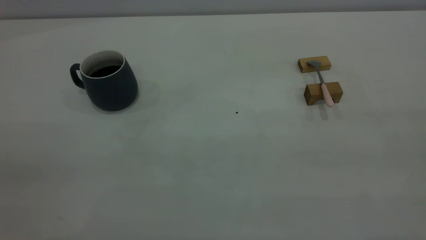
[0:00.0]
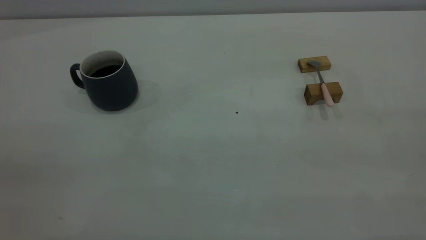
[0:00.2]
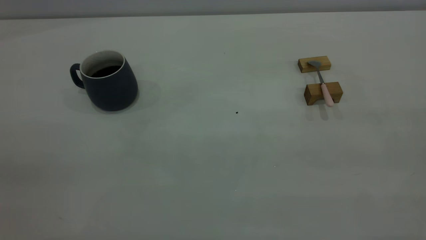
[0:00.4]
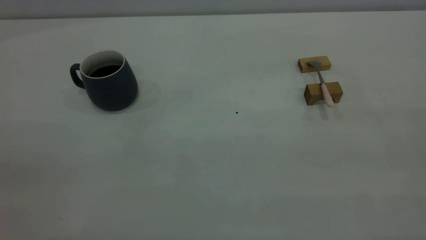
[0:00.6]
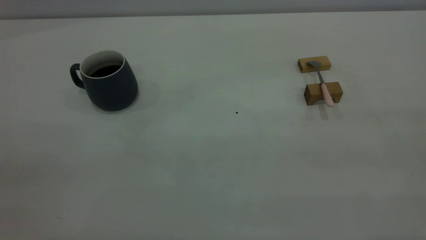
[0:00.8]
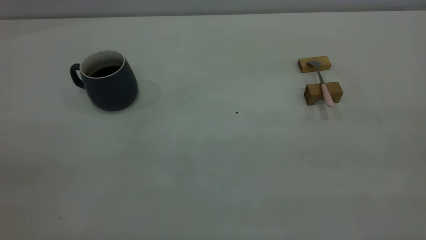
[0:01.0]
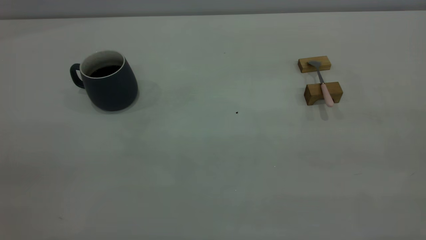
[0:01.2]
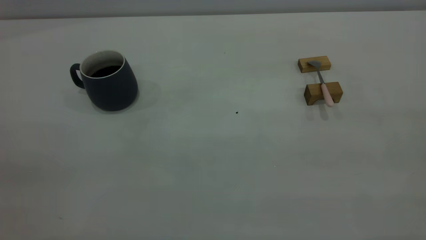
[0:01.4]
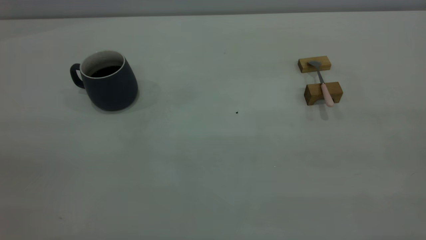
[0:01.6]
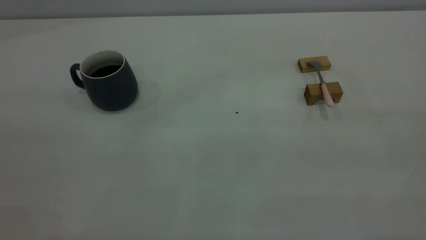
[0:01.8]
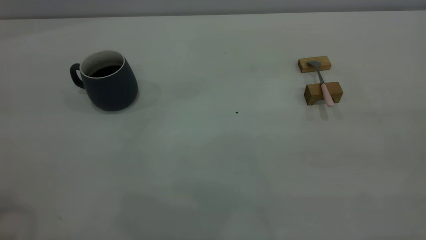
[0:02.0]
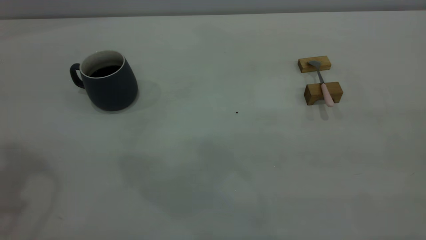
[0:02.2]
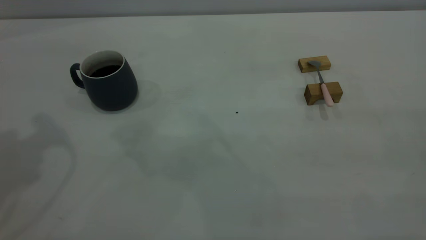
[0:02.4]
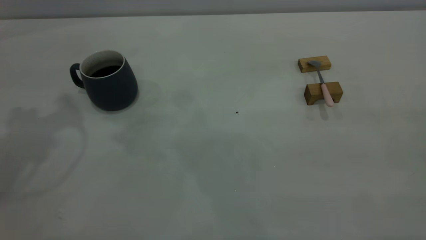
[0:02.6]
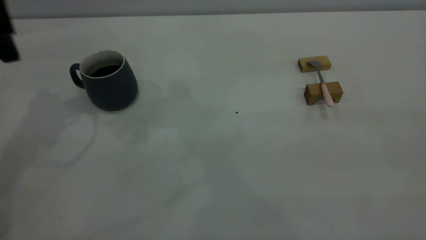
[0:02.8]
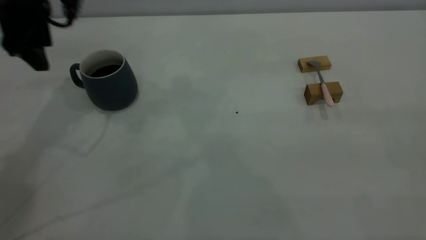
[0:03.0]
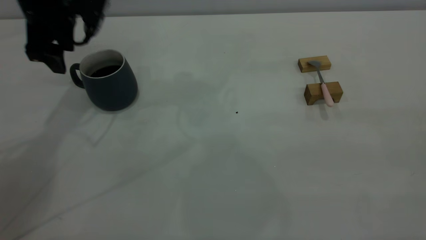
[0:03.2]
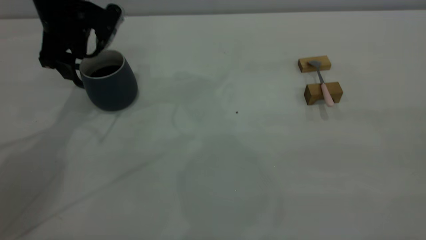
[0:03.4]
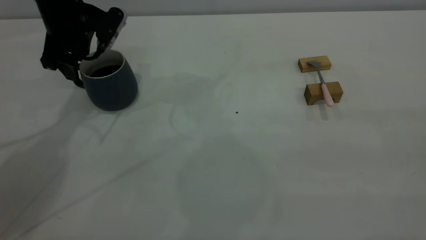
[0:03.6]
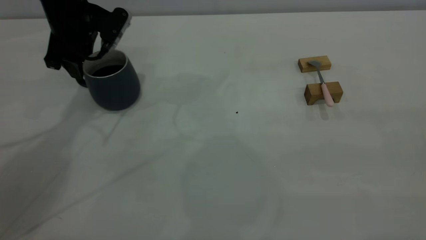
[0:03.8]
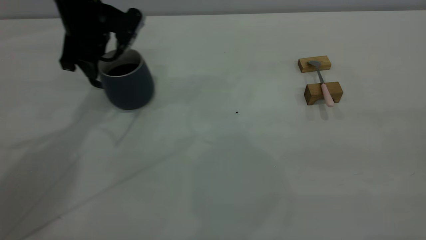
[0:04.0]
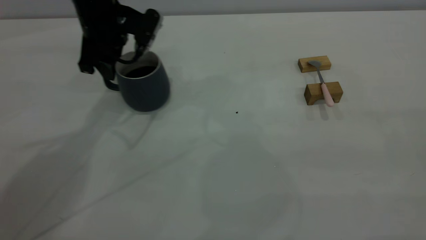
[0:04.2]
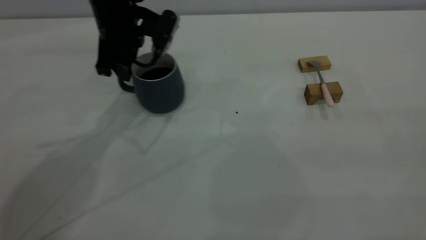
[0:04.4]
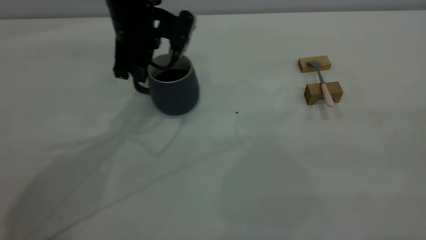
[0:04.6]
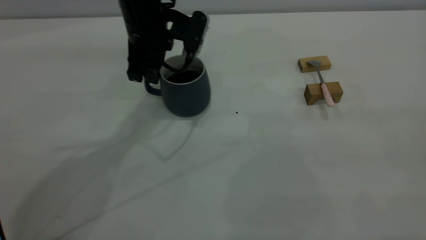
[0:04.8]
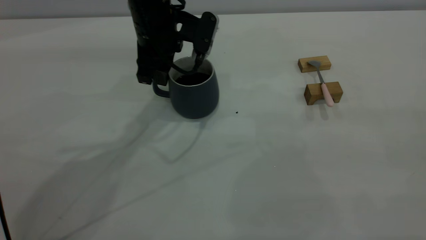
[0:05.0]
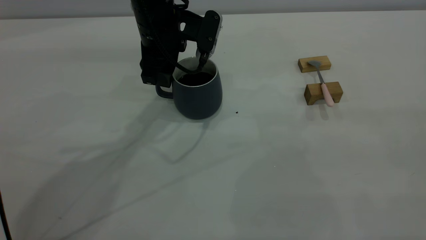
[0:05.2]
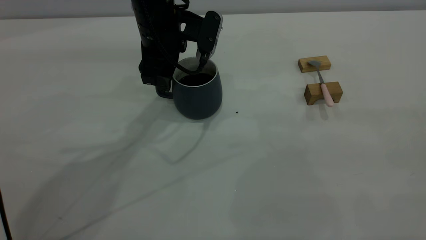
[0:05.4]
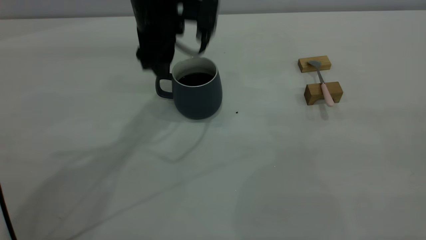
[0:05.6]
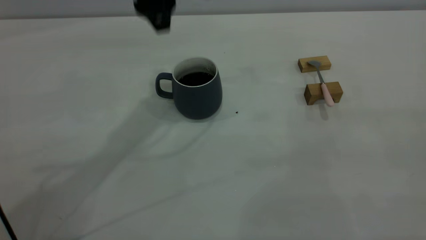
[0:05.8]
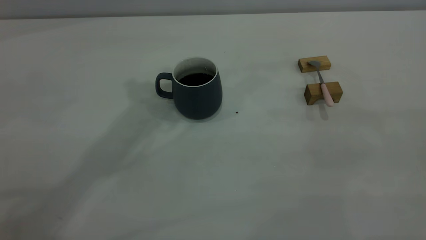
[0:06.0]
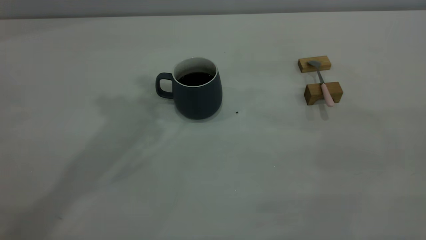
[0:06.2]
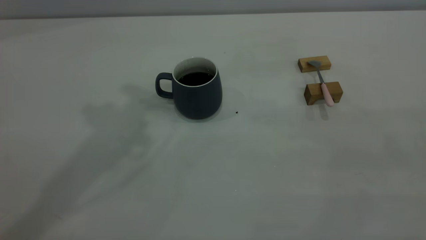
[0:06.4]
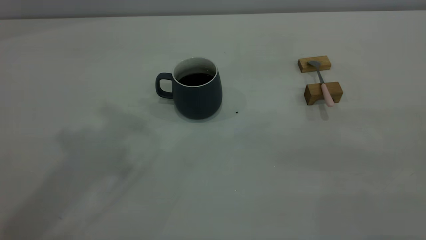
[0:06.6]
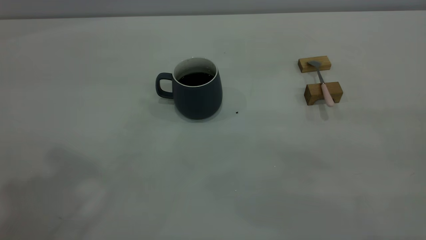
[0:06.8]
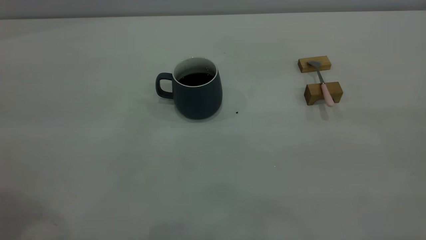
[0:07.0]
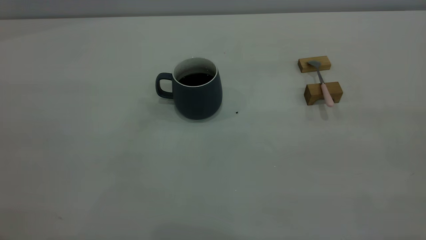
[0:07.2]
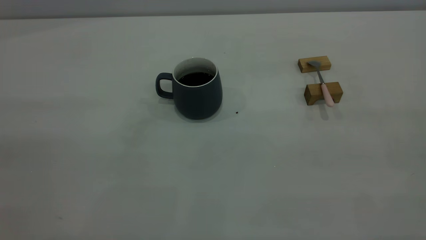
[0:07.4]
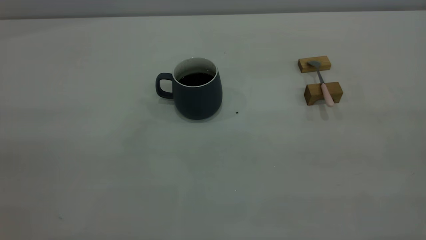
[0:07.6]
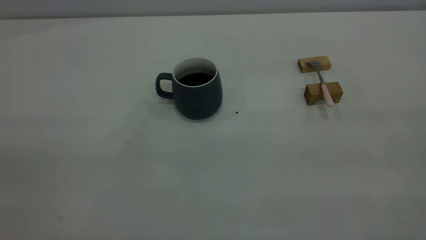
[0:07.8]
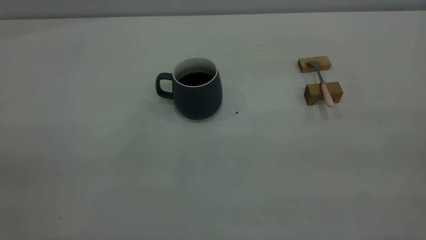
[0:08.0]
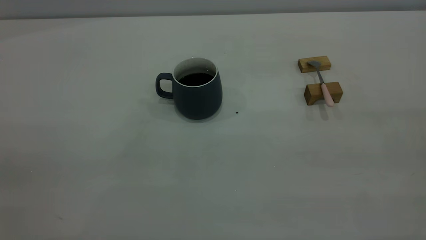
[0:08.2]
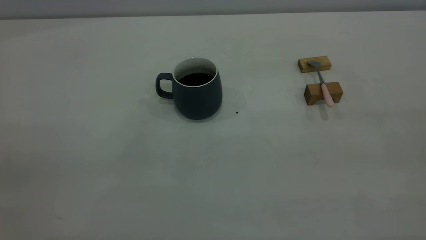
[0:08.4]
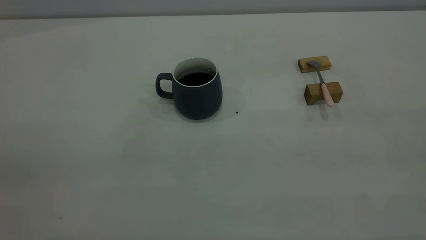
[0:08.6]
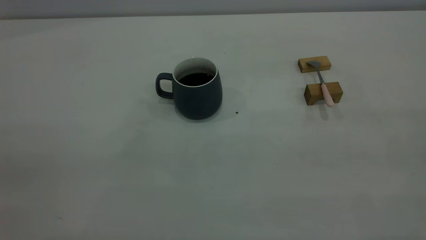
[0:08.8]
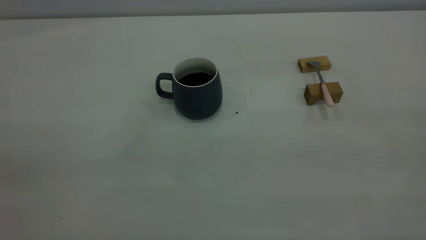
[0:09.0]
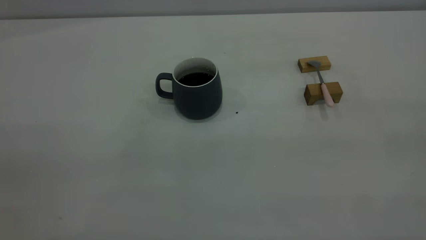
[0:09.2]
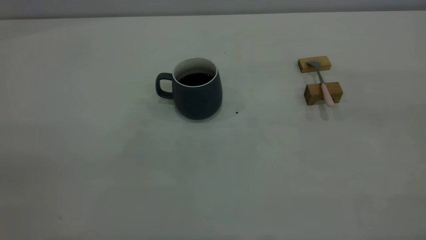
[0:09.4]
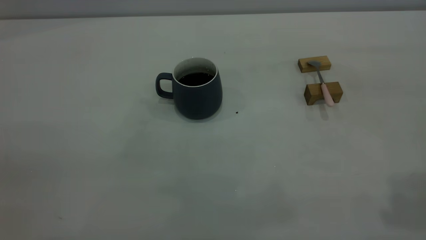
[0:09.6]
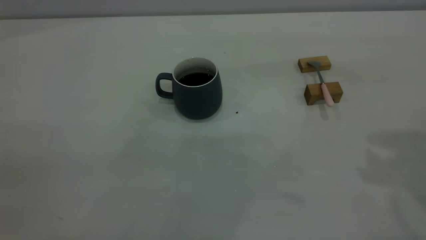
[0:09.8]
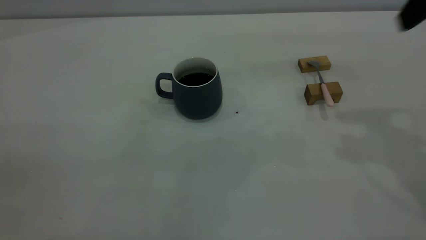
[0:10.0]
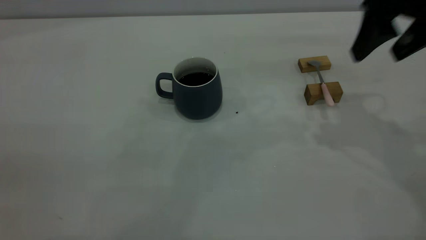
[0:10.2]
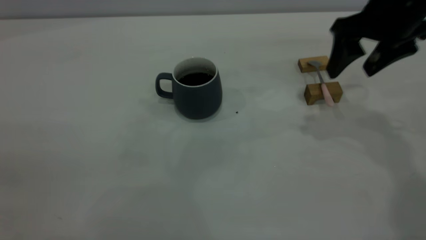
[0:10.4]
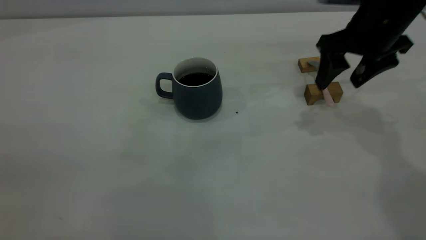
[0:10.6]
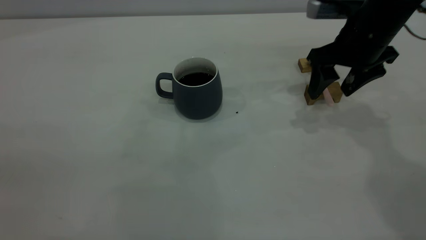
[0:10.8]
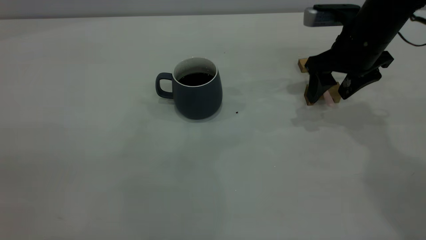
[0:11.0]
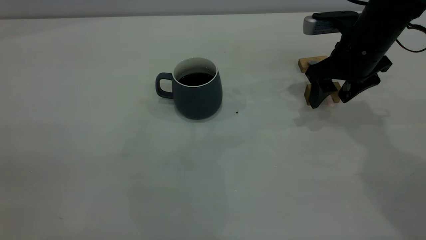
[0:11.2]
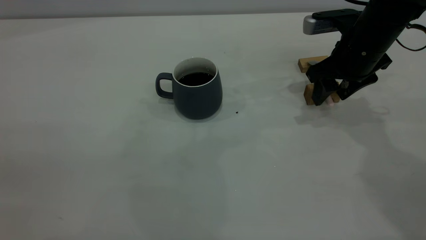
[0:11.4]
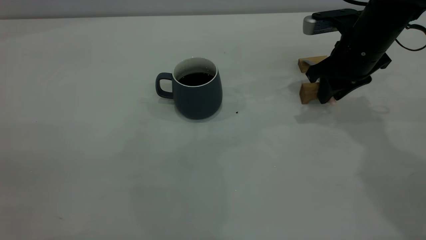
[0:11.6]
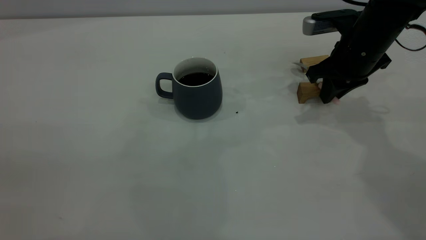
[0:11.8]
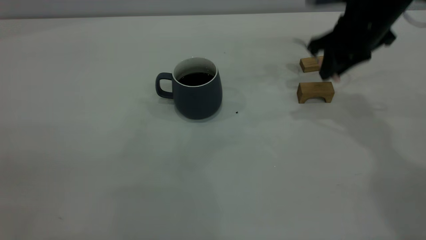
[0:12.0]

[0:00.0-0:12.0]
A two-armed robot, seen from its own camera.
Step, 0:00.0 to 0:05.6: Move the cup with coffee to the center of view.
Step, 0:05.8 to 0:12.0: Pick up the spoon.
0:01.6 to 0:03.0: The left gripper goes roughly 40 cm forward and downward, and opens its fingers.
0:03.0 to 0:04.4: The left gripper heads to the right and downward, covering approximately 15 cm, and closes.
0:04.4 to 0:06.0: The left gripper is displaced upward by some 20 cm, and opens.
0:09.0 to 0:10.4: The right gripper heads forward and downward, covering roughly 40 cm, and opens.
0:10.4 to 0:12.0: The right gripper reaches approximately 10 cm downward, then returns, and closes its fingers.

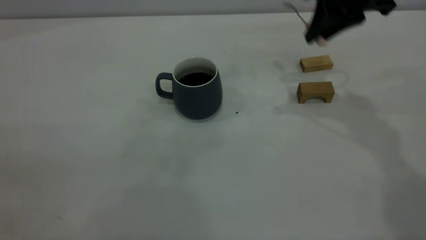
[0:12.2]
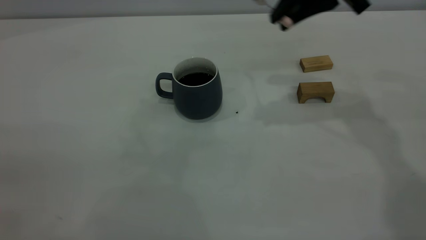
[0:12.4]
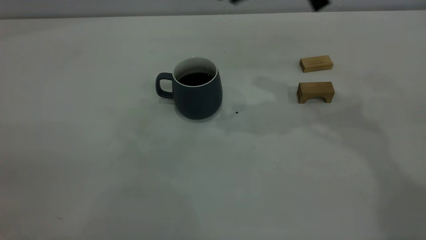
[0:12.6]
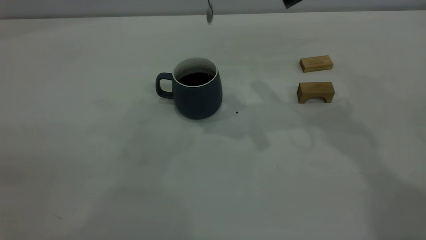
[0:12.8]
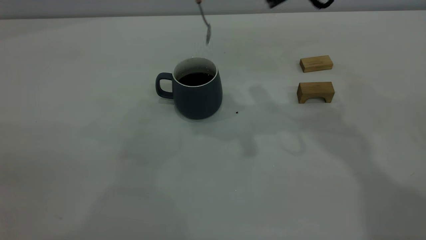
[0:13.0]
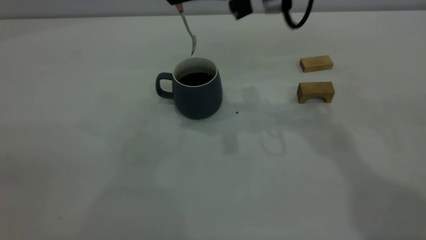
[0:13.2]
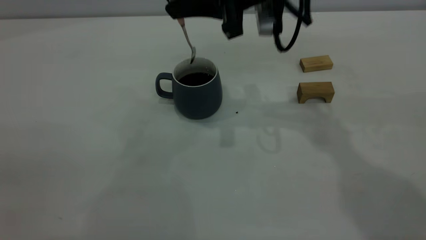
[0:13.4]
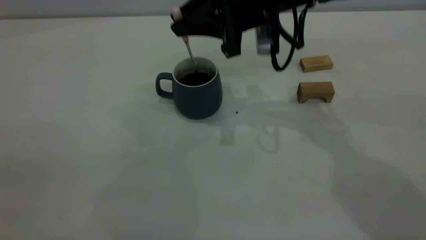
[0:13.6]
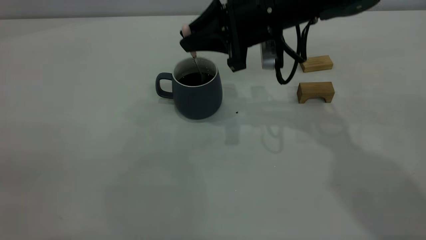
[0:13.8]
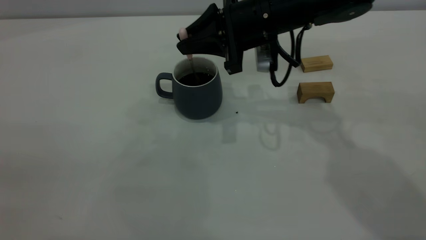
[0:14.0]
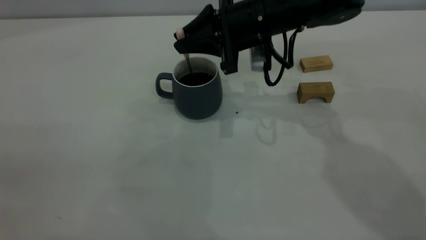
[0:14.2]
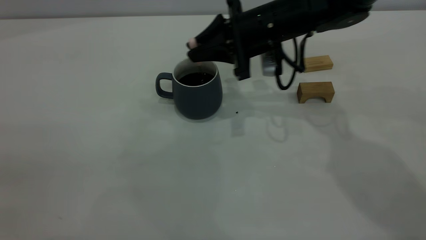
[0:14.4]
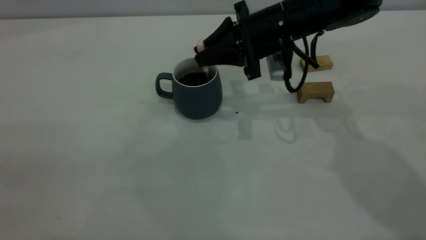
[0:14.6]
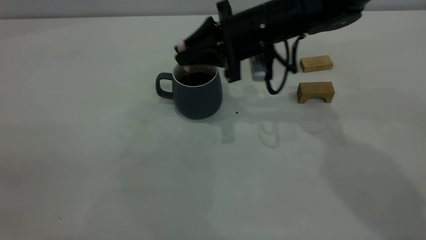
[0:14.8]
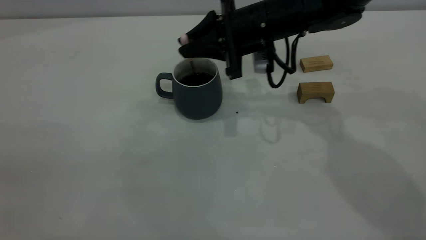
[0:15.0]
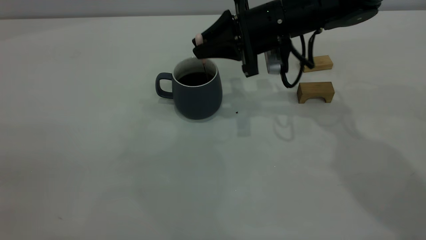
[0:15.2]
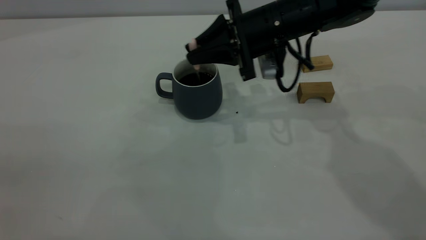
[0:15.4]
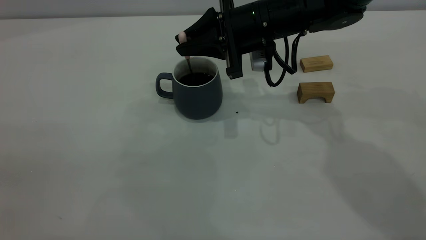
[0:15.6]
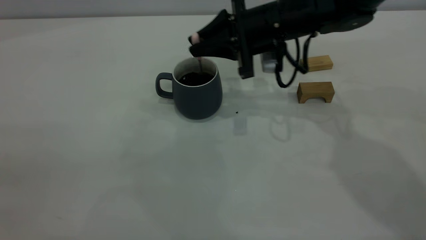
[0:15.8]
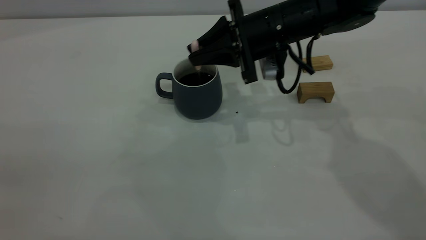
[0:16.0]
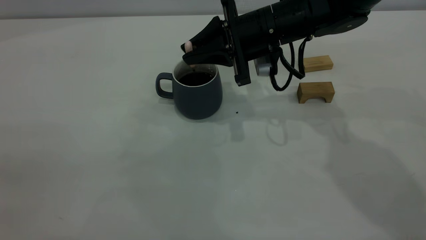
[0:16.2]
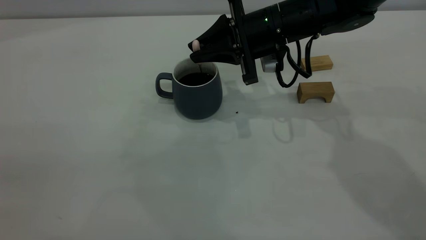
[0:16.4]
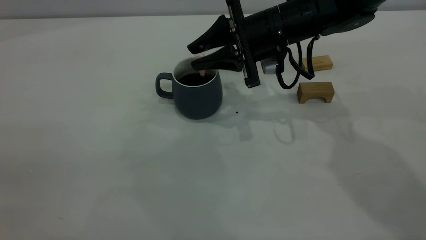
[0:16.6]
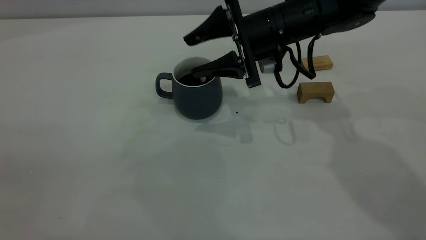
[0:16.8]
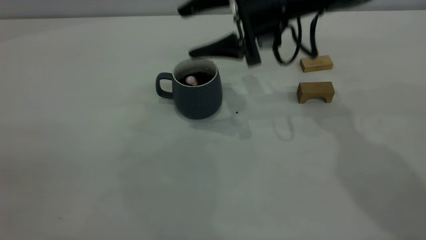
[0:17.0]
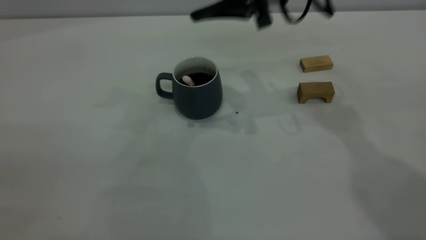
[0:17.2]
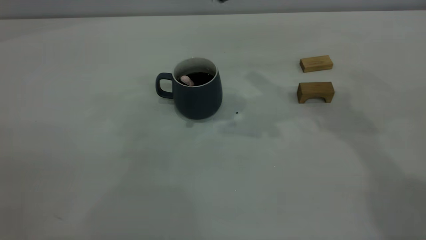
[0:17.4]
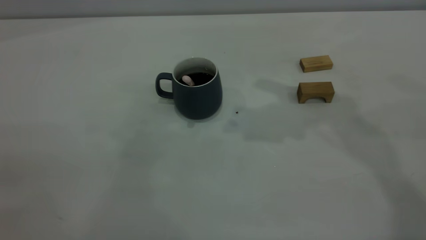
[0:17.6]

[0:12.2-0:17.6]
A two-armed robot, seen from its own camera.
Step, 0:12.2 to 0:17.0: Stir the coffee in the cup.
0:12.2 to 0:13.6: The right gripper moves to the left and downward, about 15 cm.
0:13.6 to 0:15.0: The right gripper ends up roughly 5 cm from where it was.
0:15.0 to 0:16.2: The grippers make only small movements.
0:16.2 to 0:17.6: The right gripper travels upward by about 25 cm, and opens its fingers.
